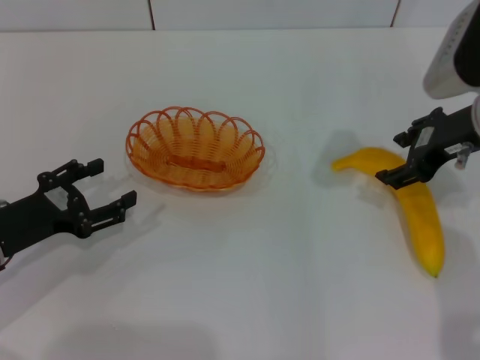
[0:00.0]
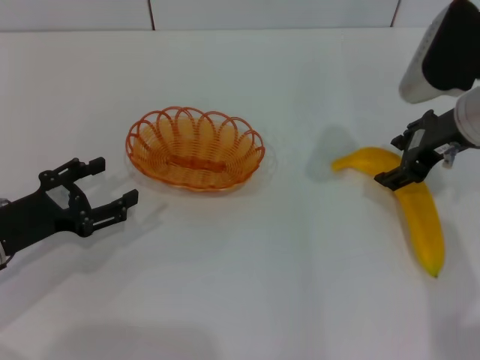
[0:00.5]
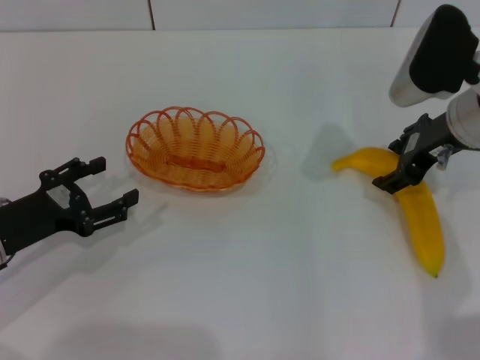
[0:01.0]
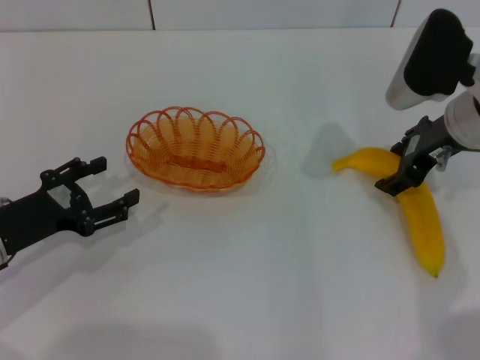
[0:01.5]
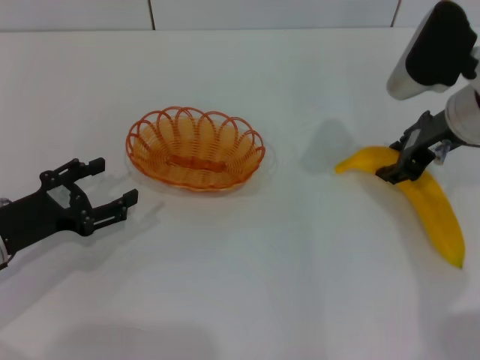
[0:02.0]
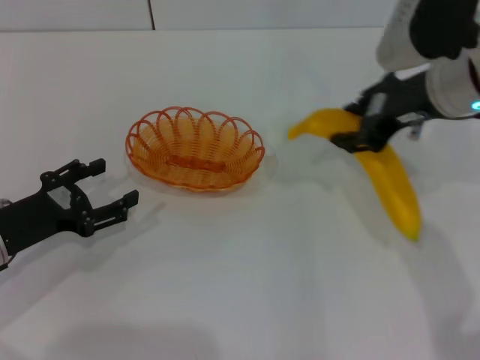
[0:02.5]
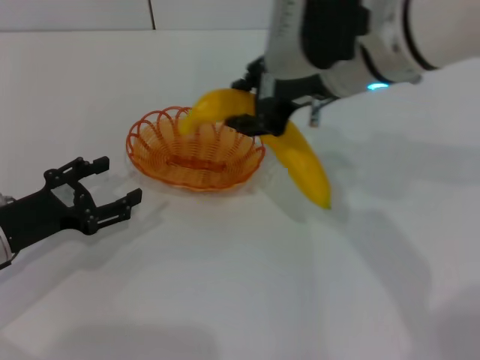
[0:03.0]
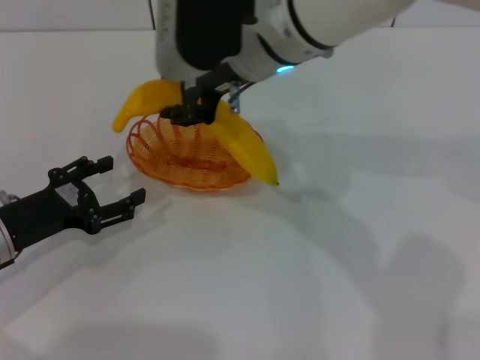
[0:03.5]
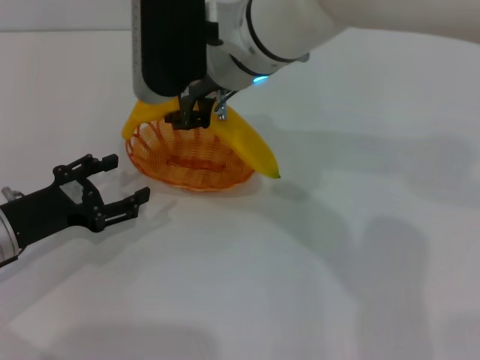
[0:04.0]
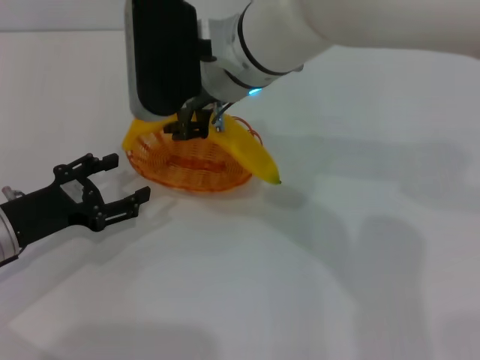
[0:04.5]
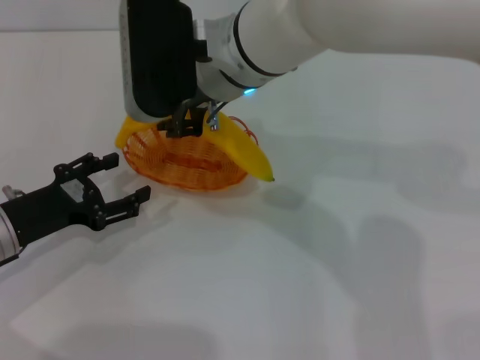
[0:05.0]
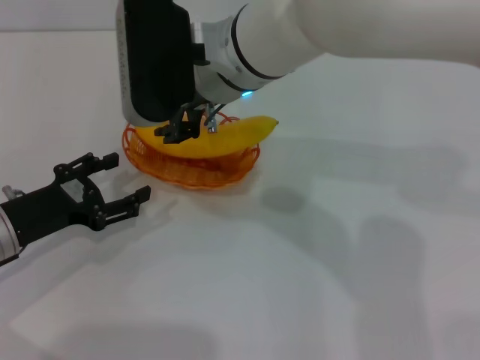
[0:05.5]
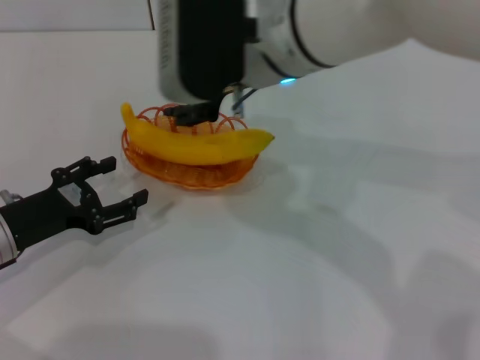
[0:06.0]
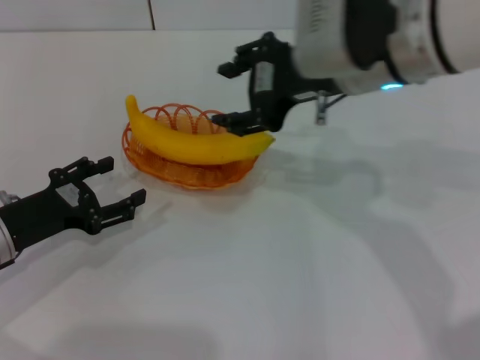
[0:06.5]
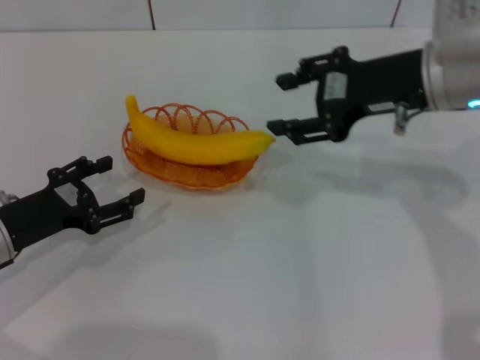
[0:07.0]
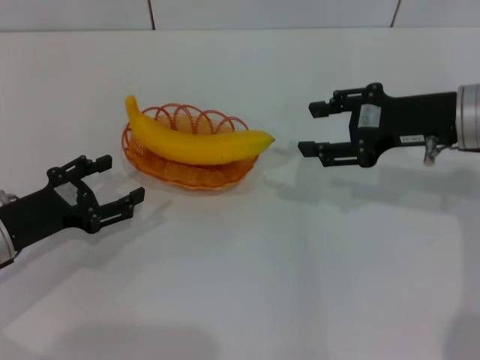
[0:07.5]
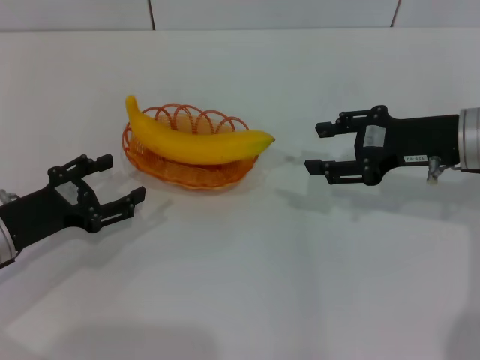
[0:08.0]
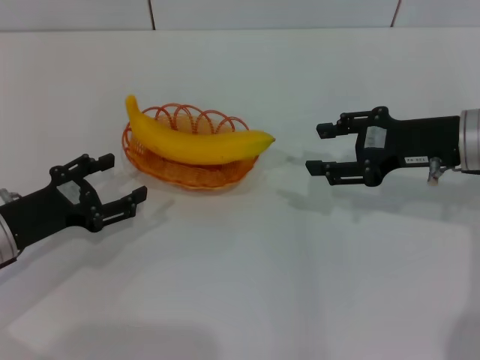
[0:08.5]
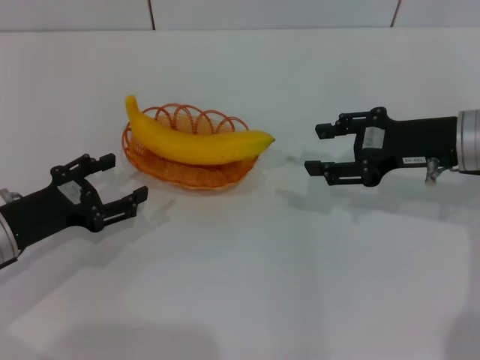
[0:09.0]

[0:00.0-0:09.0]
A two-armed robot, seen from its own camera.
Step, 0:00.0 to 0:02.0: Pick up the banana with the right gripper.
Step, 0:02.5 to 0:06.0: Place the banana into the basket with the right gripper.
0:00.0 to 0:02.0: The right gripper closes.
0:02.0 to 0:04.5: The right gripper goes some 25 cm to the left.
0:04.5 to 0:07.0: The right gripper shifts about 20 cm to the right, and opens.
0:07.0 to 0:09.0: The right gripper heads downward and to the right, covering some 10 cm.
